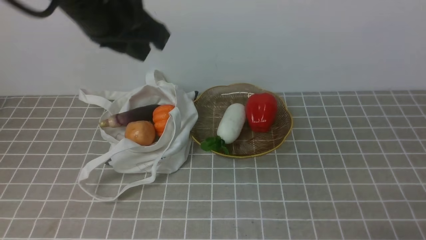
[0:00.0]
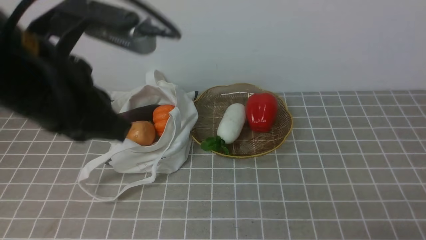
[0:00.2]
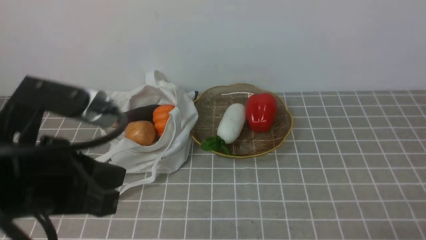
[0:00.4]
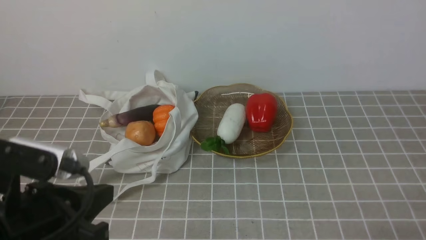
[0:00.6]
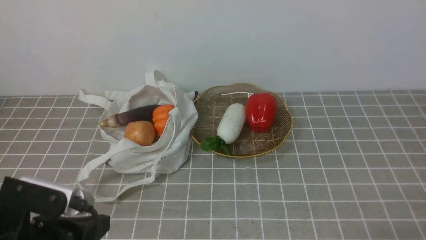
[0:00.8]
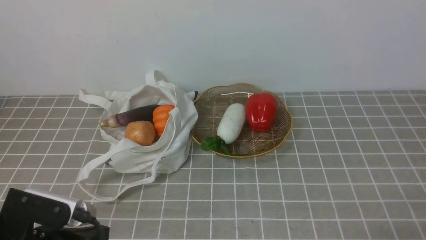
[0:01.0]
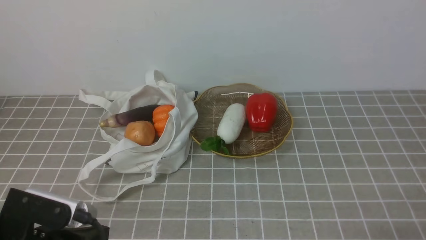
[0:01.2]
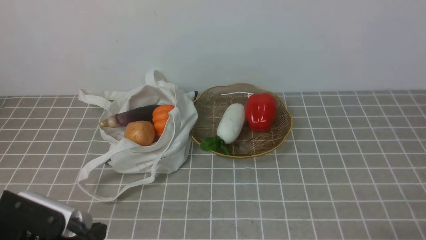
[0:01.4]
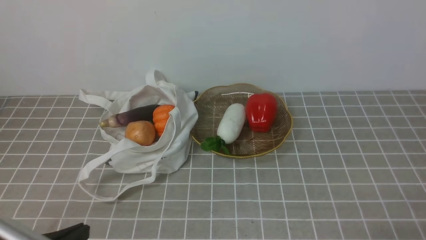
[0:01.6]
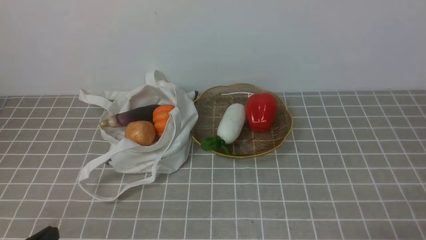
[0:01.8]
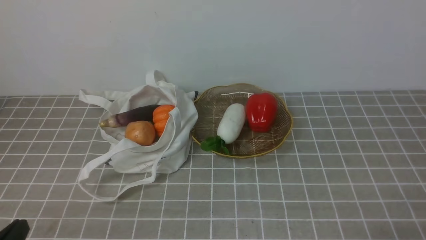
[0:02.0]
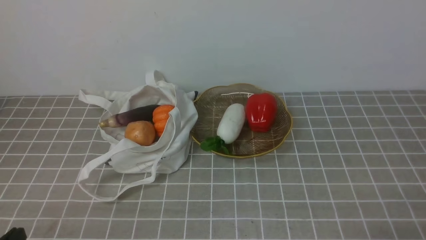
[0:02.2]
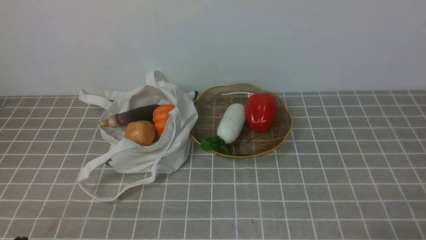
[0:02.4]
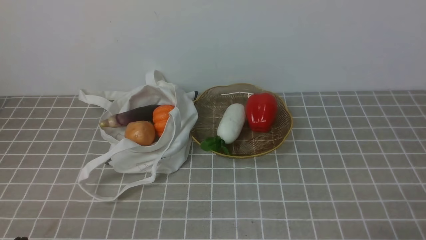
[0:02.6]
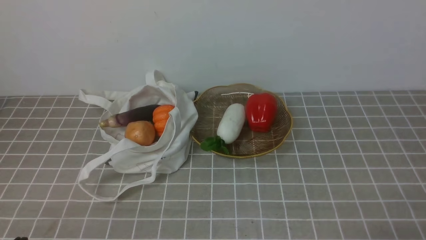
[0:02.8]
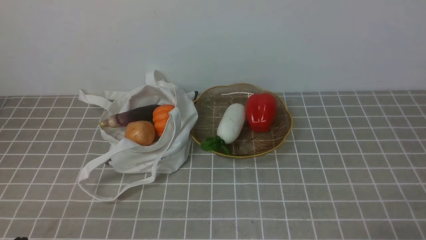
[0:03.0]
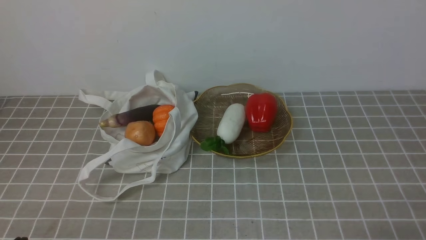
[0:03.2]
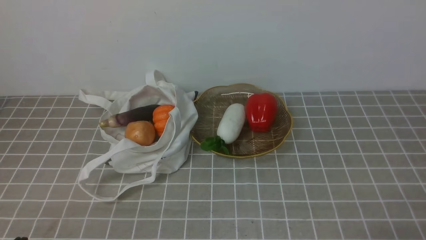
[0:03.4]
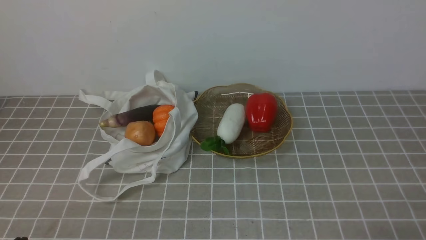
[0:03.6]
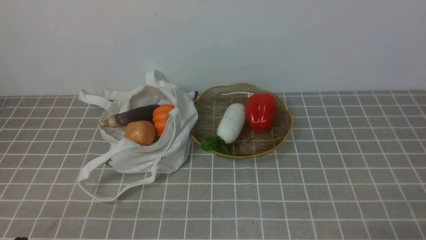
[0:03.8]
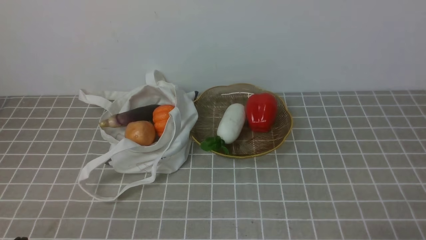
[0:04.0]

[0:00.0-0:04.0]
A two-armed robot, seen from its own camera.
Task of the whole recording: take vegetables from bag on grey coffee tablecloth place on plate.
0:00.0 to 0:01.4: The left gripper is displaced downward, backward and to the left by roughly 30 cm.
0:01.4 to 0:02.6: The left gripper shifts roughly 5 cm to the left and backward.
0:02.6 to 0:04.0: The two grippers keep their place.
